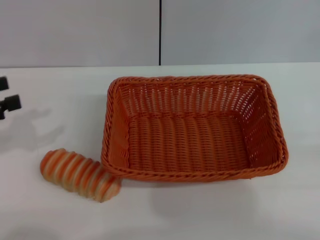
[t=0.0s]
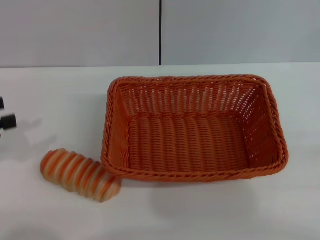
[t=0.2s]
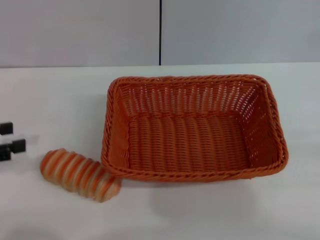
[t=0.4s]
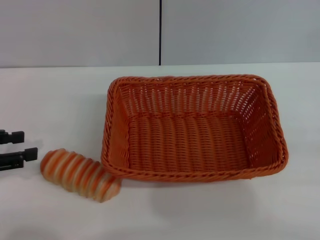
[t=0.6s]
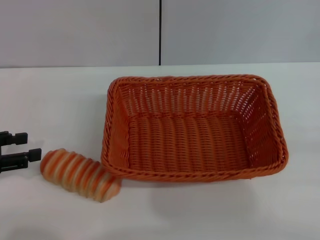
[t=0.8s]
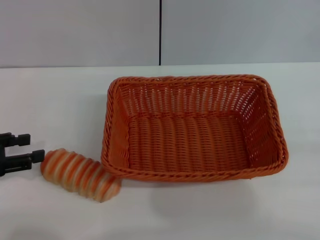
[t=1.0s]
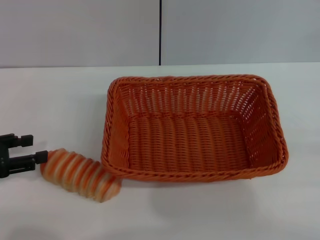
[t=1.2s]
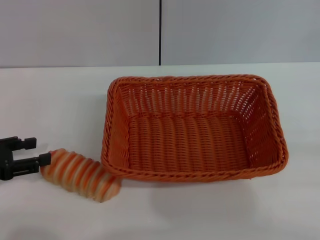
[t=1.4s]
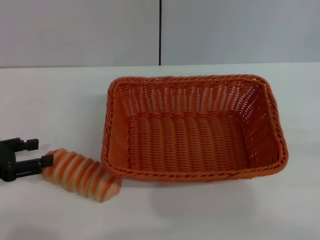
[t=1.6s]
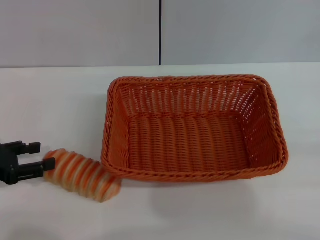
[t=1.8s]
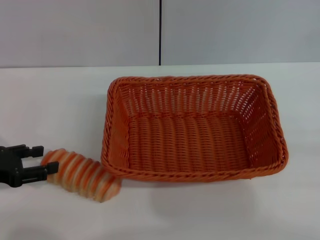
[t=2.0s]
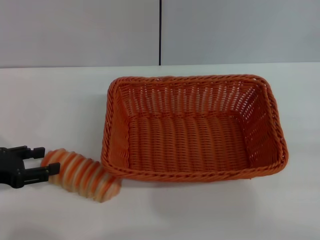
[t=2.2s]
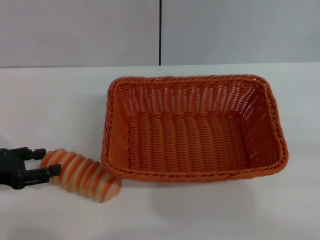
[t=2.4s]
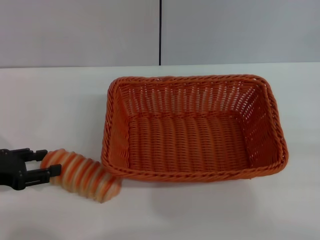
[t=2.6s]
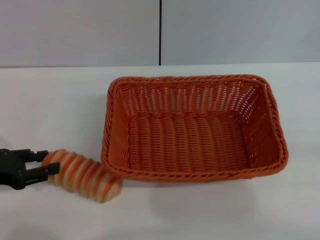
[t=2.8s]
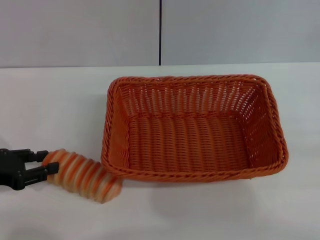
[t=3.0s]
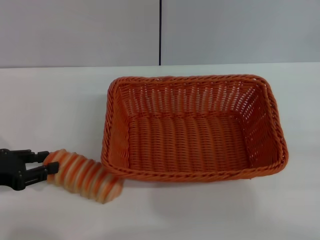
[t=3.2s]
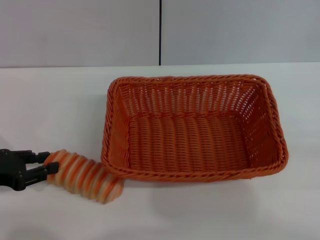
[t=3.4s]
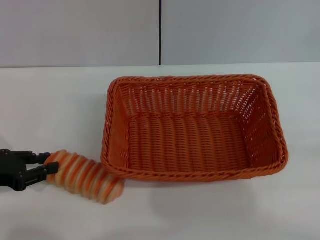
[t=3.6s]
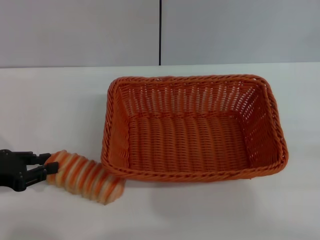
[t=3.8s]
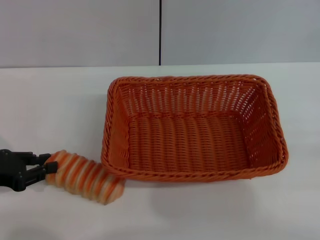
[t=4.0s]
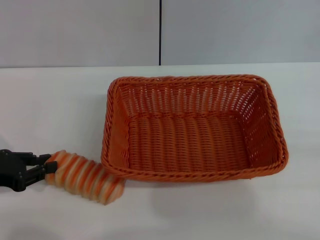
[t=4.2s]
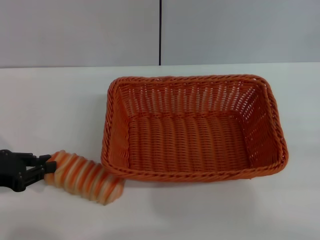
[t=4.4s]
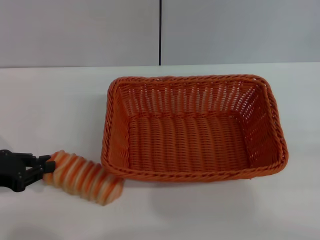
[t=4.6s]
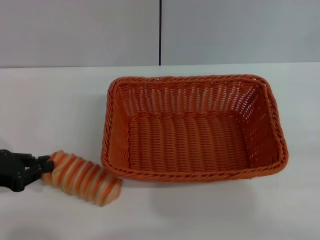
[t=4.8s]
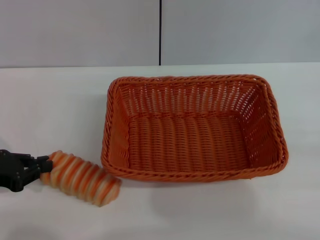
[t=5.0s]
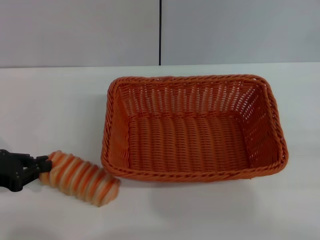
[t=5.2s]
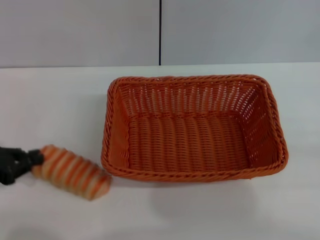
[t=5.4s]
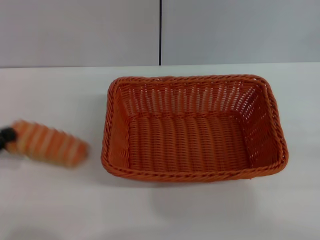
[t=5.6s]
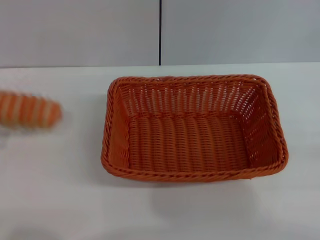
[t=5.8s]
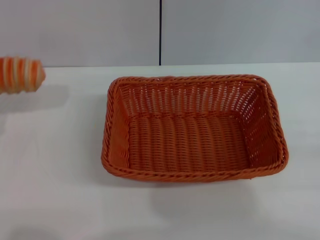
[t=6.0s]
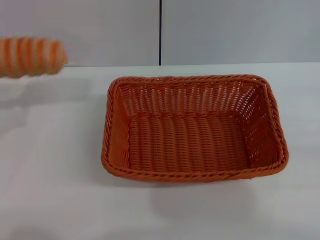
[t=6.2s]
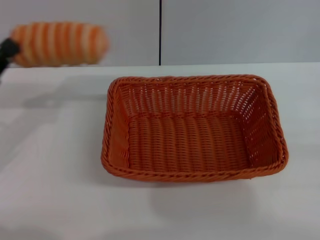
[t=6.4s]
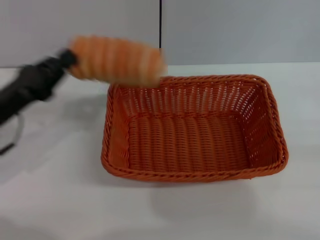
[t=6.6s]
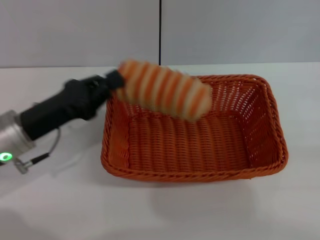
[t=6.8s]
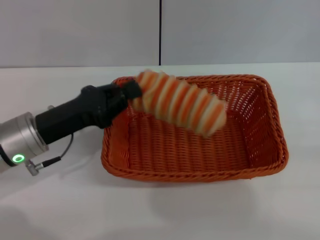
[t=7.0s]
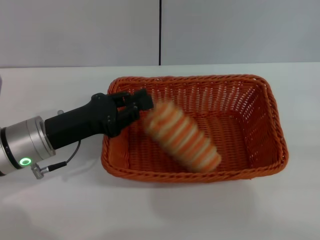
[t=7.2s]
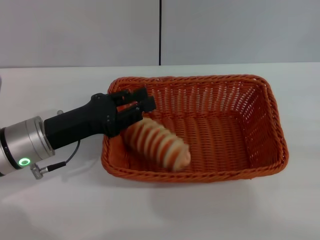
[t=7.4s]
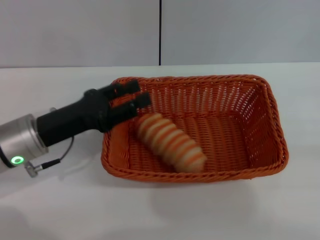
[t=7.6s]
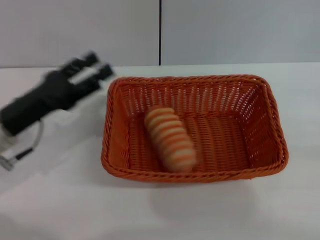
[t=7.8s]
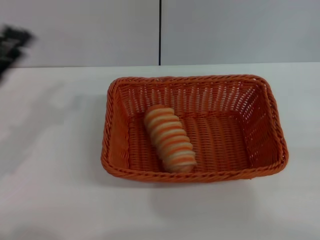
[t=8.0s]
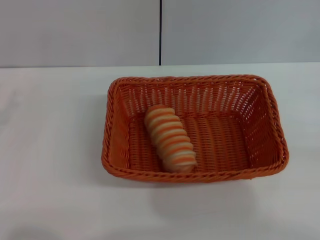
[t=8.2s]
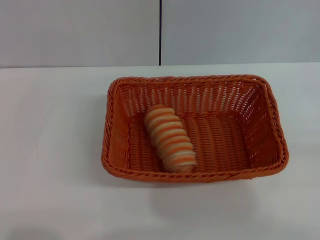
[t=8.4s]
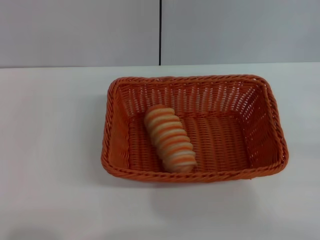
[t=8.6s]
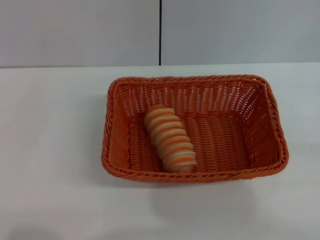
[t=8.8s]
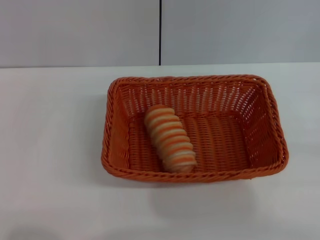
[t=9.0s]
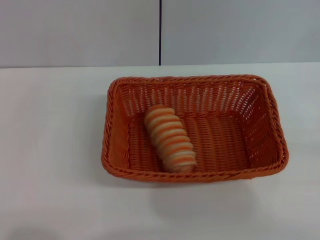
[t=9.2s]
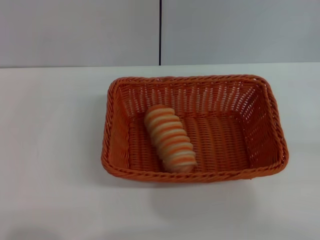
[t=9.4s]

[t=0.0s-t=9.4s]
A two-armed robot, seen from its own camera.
Step, t=0.0s to t=5.6s: Pick up the long bread with the left gripper.
Step, t=5.8s to t=7.6s: Place the long bread into the light basket with the left gripper.
t=0.0s to t=1.6s: The left gripper heads downward, covering some 5 cm.
t=1.6s to t=3.2s: The grippers make only small movements.
t=3.2s to t=4.8s: The left gripper closes its fingers.
t=6.2s to t=7.8s: The left gripper shifts some 10 cm to the right, and opens up.
t=7.8s to t=9.4s: The left gripper heads to the left and backward, covering roughly 15 cm, and opens up.
